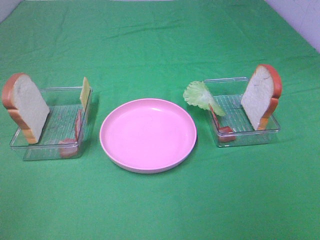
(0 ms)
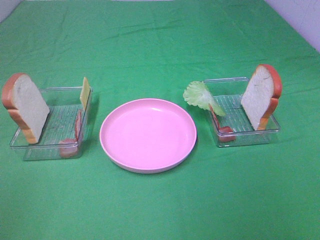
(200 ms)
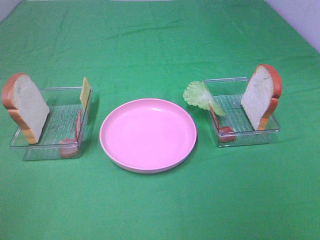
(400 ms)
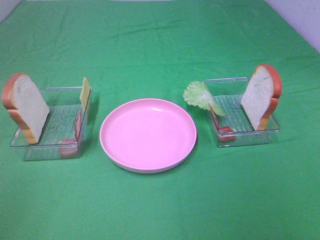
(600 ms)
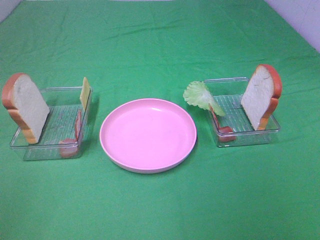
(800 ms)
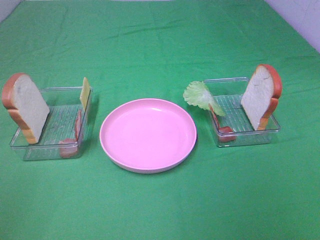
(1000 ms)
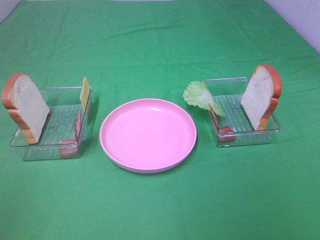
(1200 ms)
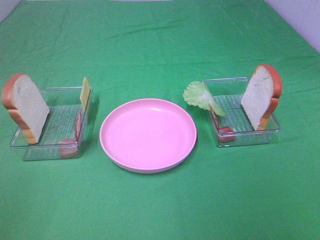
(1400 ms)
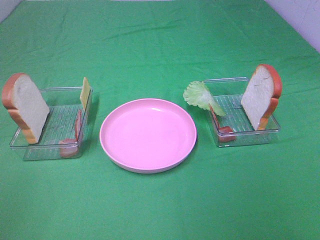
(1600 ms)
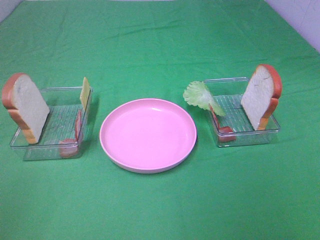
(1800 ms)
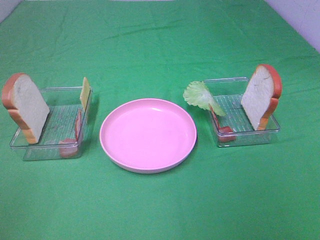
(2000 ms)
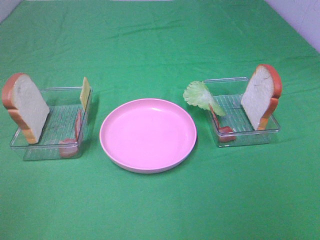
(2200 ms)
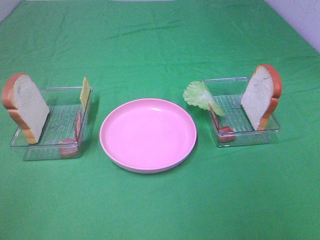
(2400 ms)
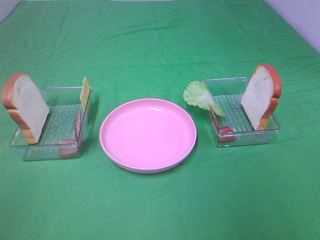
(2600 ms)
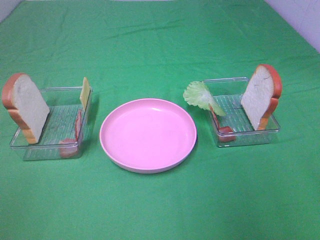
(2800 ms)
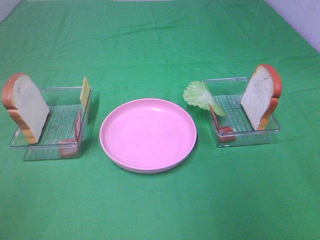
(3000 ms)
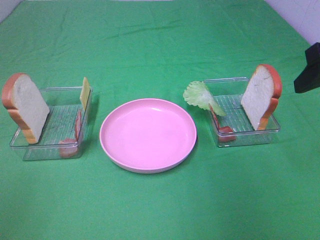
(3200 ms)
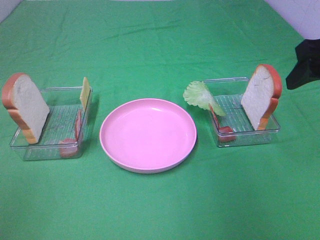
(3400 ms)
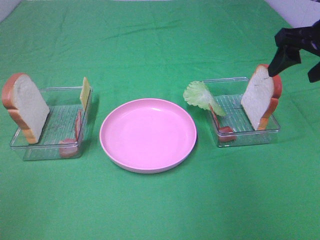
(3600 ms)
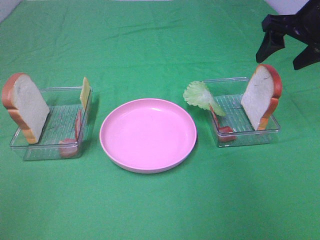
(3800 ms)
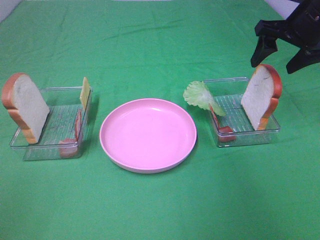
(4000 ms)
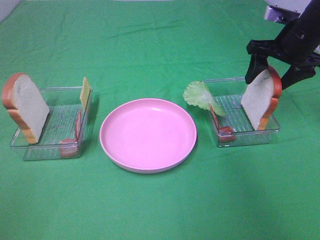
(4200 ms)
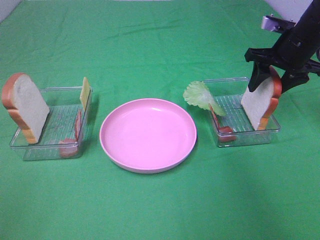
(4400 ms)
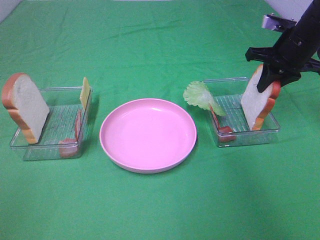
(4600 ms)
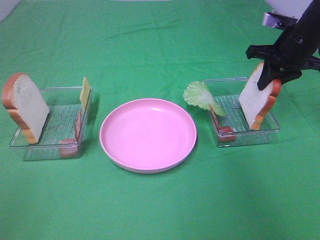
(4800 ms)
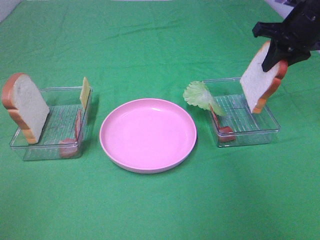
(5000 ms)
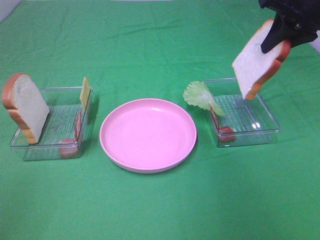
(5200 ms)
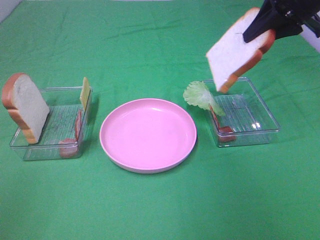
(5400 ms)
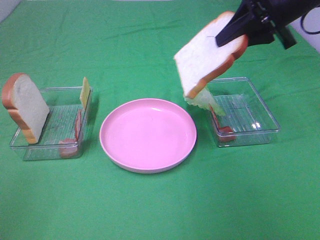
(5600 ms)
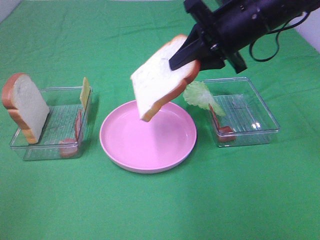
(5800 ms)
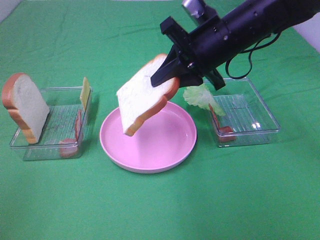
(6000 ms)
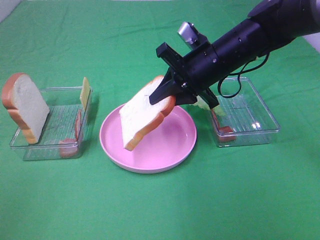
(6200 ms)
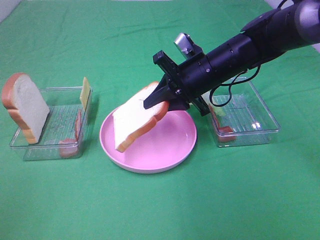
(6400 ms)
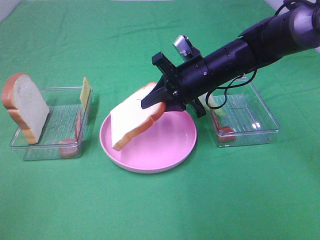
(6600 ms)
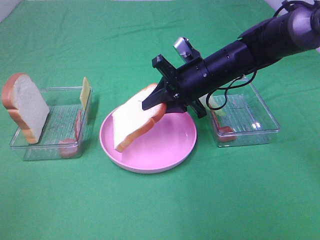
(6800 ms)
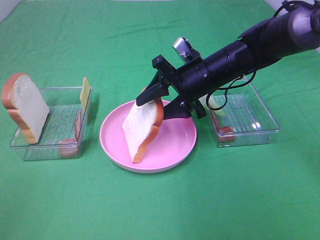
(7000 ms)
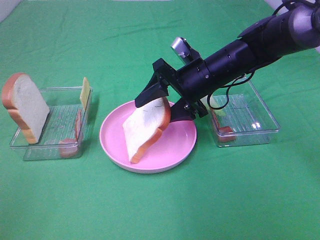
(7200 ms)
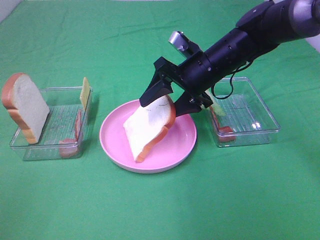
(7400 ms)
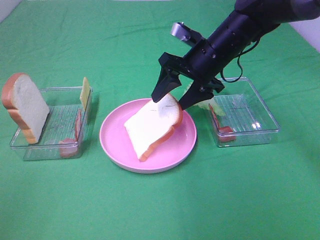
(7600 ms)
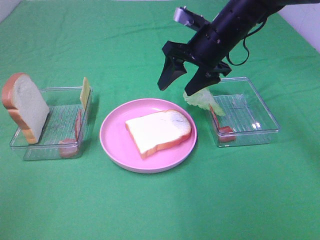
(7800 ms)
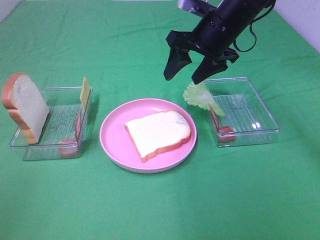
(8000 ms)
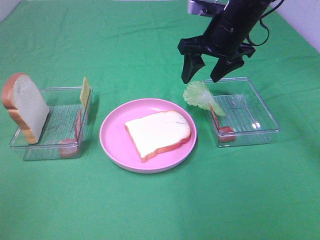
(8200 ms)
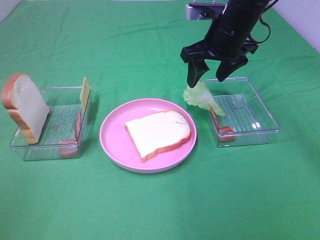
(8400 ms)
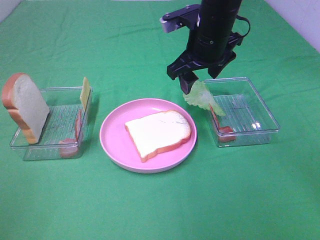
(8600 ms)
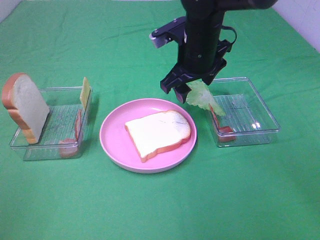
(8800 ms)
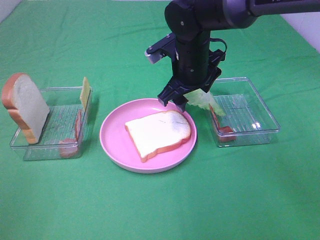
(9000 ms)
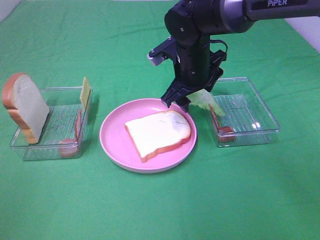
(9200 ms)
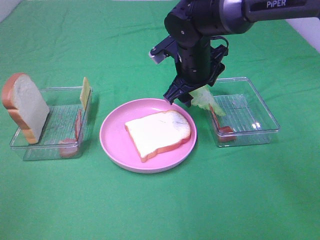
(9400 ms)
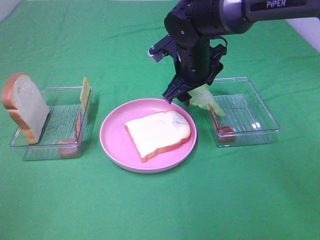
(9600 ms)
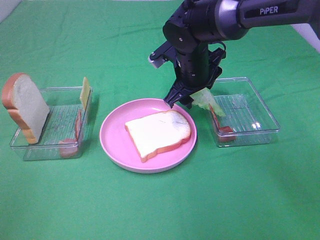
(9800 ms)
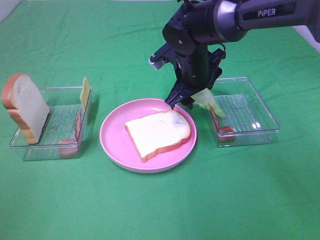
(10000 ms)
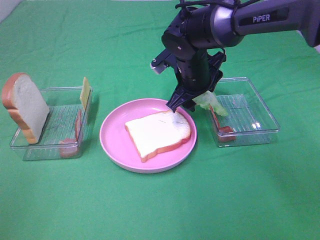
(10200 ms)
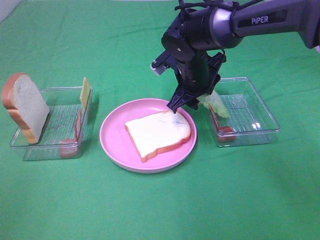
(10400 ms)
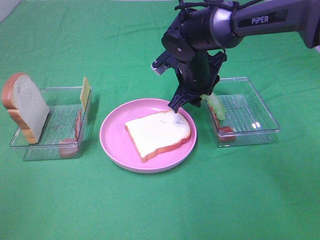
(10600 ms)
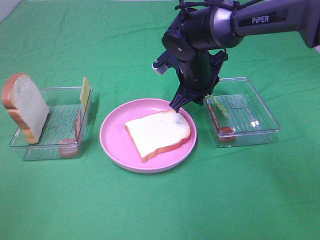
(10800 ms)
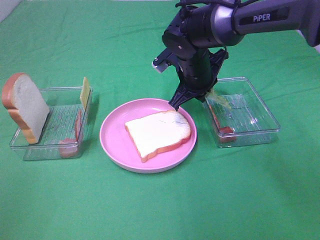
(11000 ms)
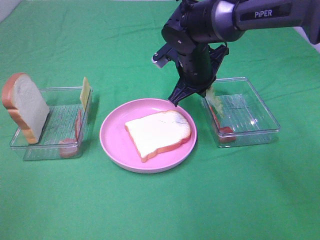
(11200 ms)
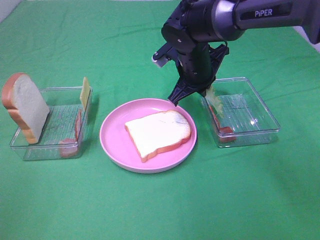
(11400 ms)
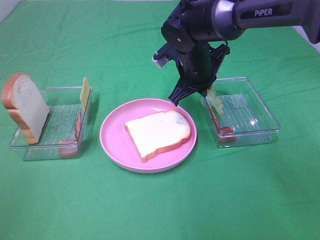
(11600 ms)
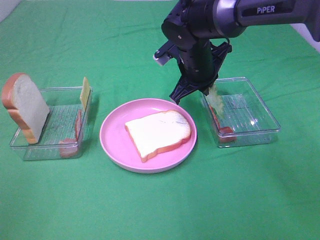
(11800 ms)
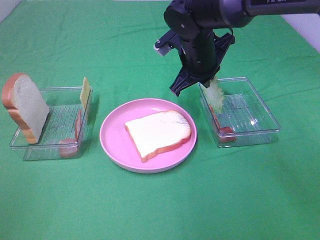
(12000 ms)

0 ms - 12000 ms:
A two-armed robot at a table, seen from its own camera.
Task of the whole recording: Make sandwiches.
Step, 0 ms - 4600 ms: Right hand:grab the bread slice.
Step, 4800 ms - 8000 ms: Right hand:place the bread slice on the plate.
Step, 8200 ms - 11800 ms: Right hand:grab the lettuce slice.
0 ms - 1600 ms: The two grippers keep their place.
3000 ms - 4400 ms: The right gripper shifts some 25 cm forward and downward.
4400 ms - 6000 ms: The right gripper is displaced to the left and backward by about 15 cm, and closes.
6000 ms - 7600 ms: The right gripper shifts by approximately 5 cm, and opens its fingers.
7600 ms - 9000 ms: The right gripper moves some 5 cm.
9000 ms - 10400 ms: The grippers move only a little.
10400 ms - 12000 ms: The right gripper closes its fingers.

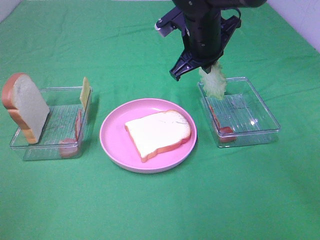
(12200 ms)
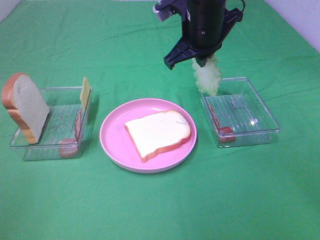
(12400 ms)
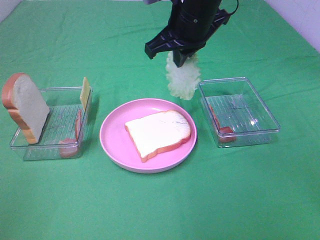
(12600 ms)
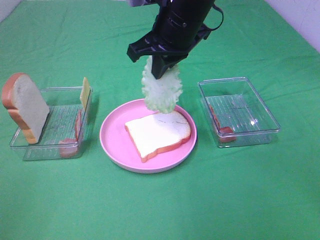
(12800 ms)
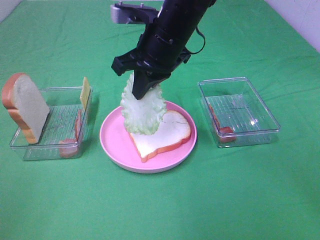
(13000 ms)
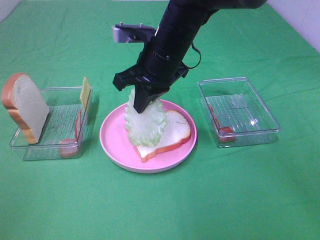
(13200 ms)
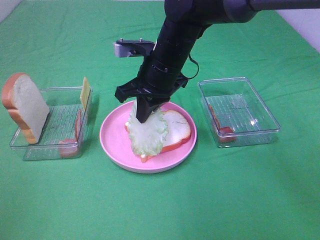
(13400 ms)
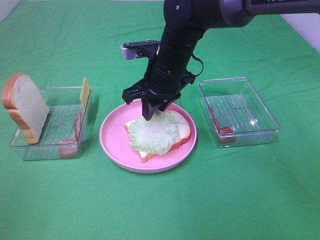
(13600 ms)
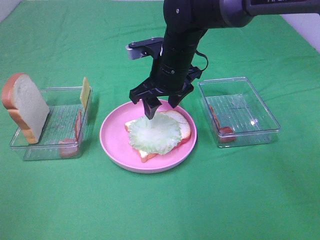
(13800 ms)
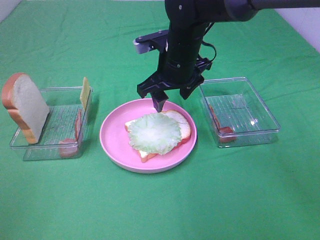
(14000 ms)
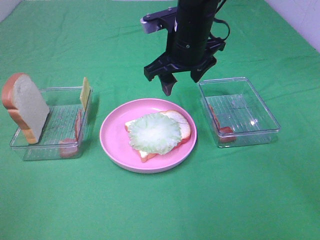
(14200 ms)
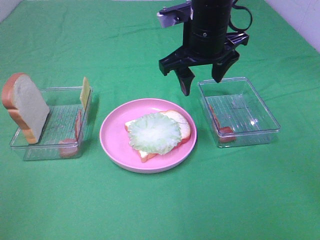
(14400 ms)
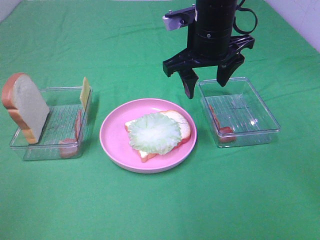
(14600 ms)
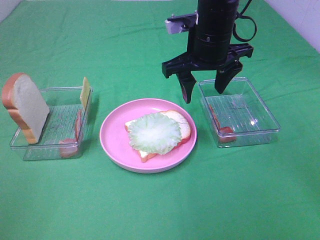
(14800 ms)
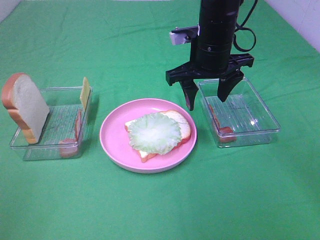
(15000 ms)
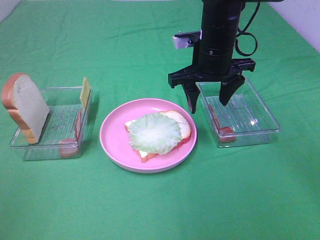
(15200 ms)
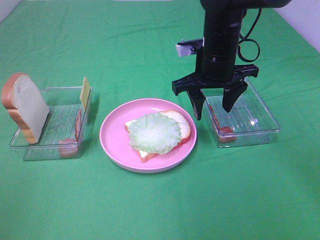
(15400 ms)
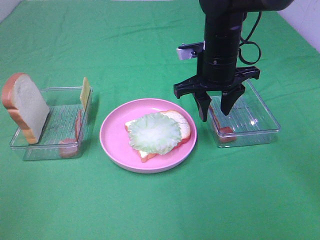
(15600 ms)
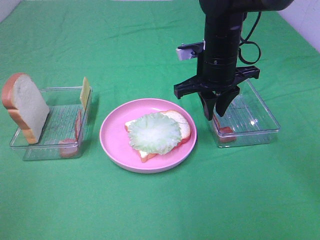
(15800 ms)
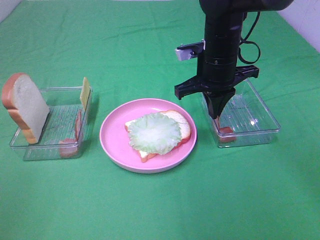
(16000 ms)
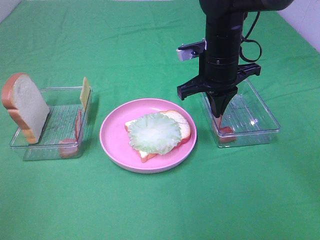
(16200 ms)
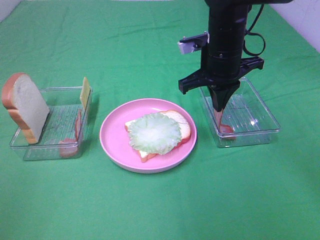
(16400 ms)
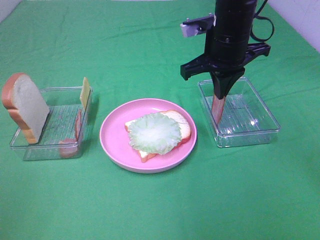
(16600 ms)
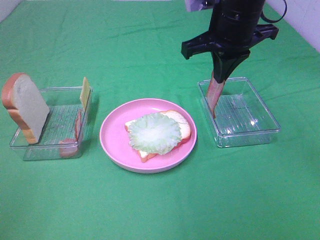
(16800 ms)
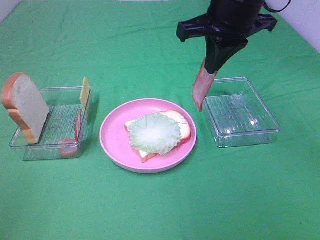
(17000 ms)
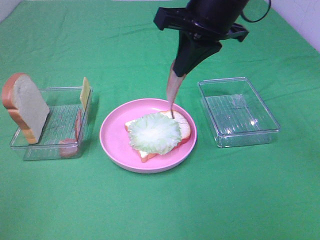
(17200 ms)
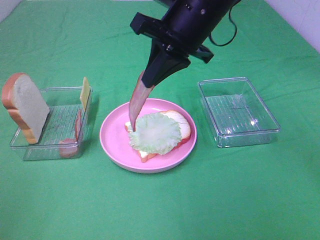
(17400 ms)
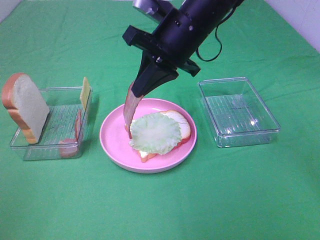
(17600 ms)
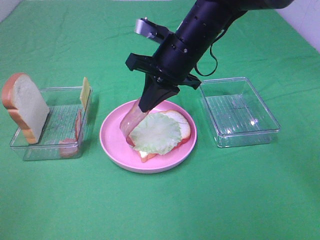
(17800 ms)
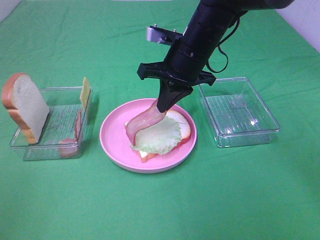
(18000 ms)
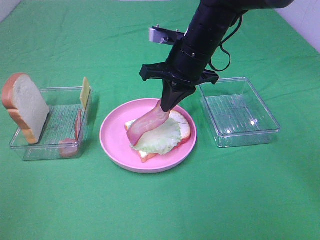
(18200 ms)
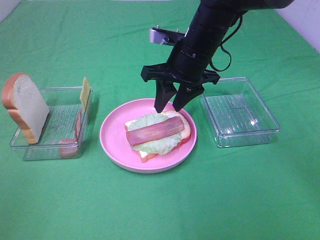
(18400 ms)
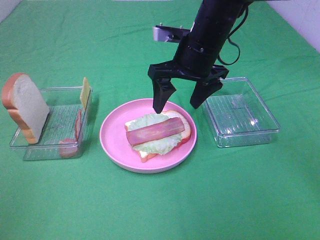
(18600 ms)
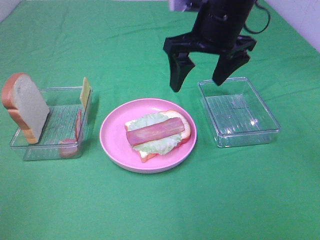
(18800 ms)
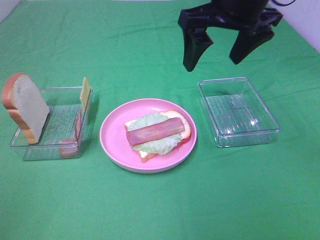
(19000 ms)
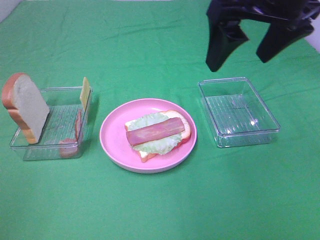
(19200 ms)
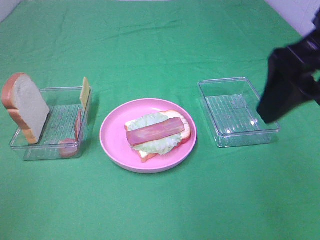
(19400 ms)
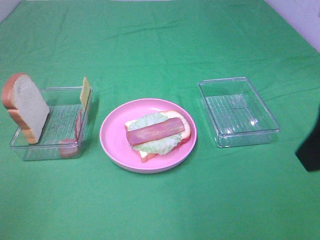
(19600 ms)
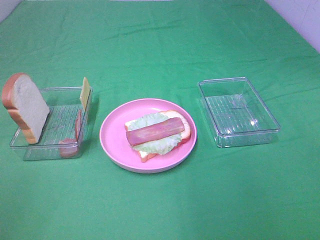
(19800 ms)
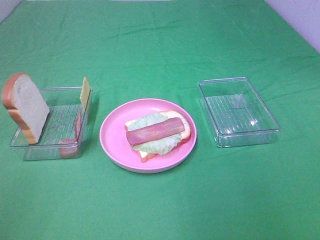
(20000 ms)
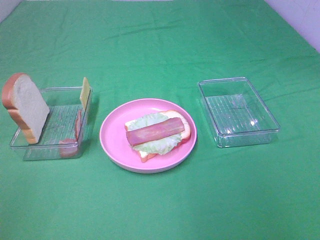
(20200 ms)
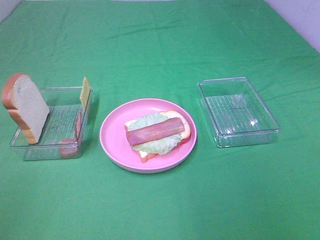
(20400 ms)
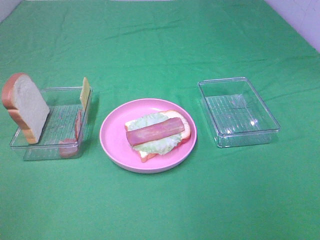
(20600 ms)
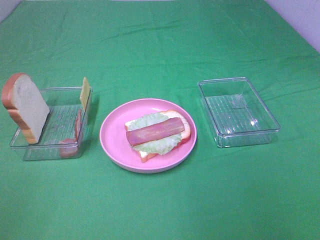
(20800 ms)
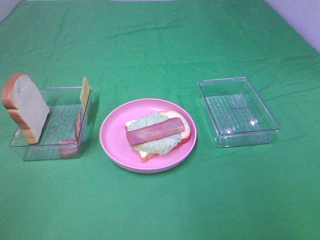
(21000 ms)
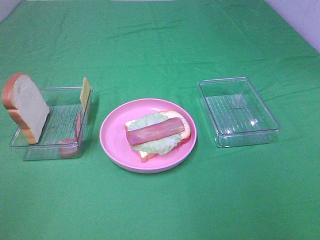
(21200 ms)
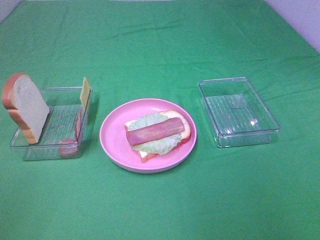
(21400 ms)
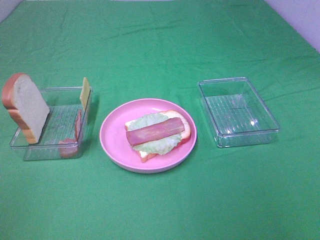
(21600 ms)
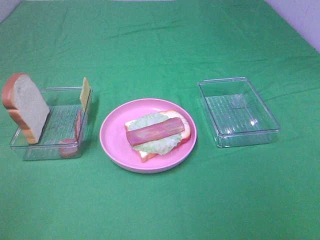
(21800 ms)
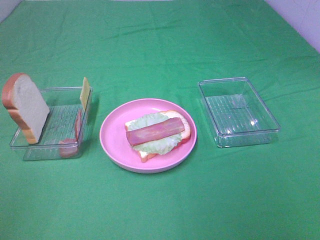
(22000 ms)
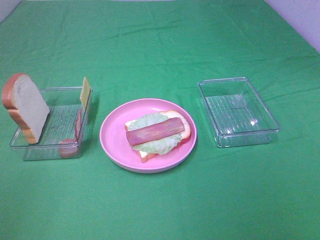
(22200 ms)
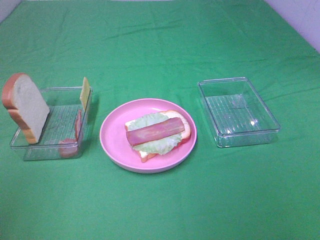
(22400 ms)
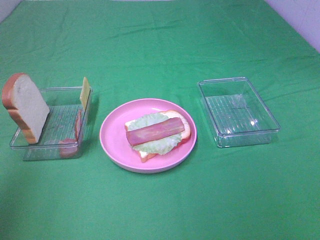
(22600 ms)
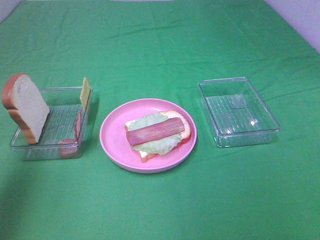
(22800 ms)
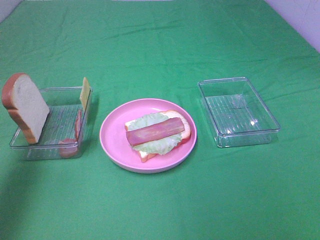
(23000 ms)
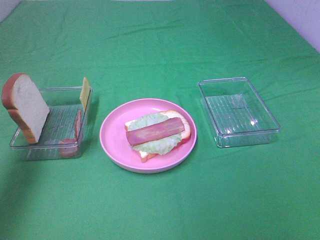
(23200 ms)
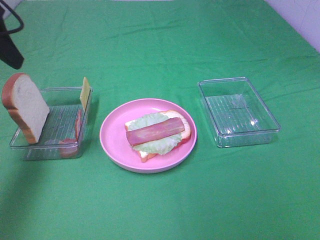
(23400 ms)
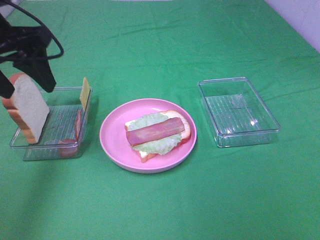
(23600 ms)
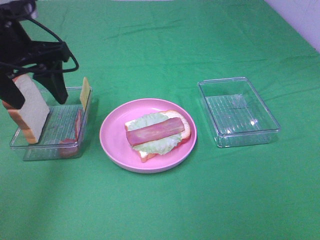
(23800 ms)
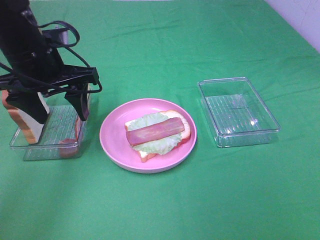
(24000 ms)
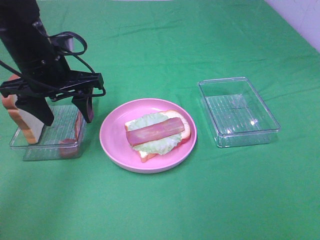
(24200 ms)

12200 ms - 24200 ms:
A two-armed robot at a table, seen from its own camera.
Task of the whole recording: Make sandwiches.
Step, 12200 ms - 14000 ms: Right hand:place the lettuce slice on the bread slice.
Step, 14200 ms - 16200 ms: Right hand:grab the bacon.
Step, 16400 ms - 18600 ms: Right hand:place bacon on lettuce slice.
12200 ms - 13800 ms: The right gripper moves approximately 5 cm, and opens its fingers.
13800 ms - 15200 ms: The right gripper is displaced to the right by some 5 cm.
15200 ms - 16600 ms: The right gripper closes.
16600 ms - 18200 ms: The right gripper moves roughly 5 cm upward and comes back.
18200 ms - 19800 ms: The right gripper goes roughly 35 cm backward, to the right and upward, and opens up.
21200 ms - 22600 ms: The left gripper moves forward and upward, some 15 cm.
22600 ms - 24200 ms: The left gripper is displaced forward, downward and to the right by roughly 30 cm.
